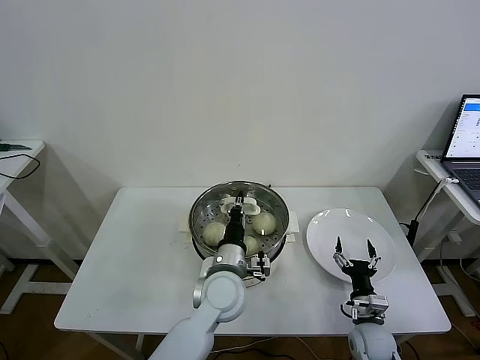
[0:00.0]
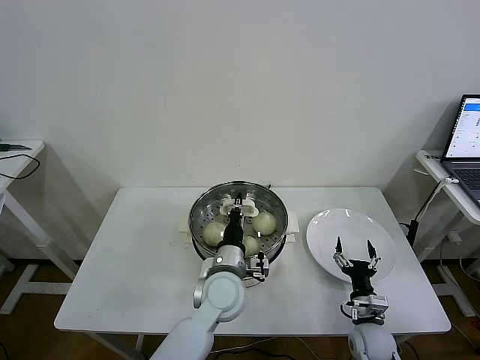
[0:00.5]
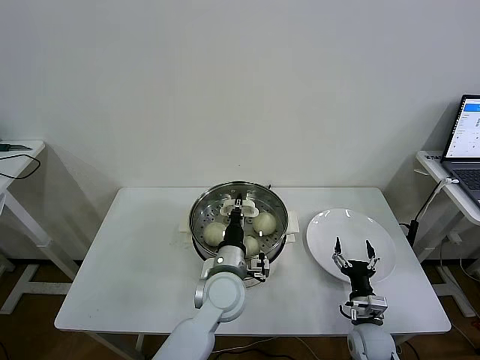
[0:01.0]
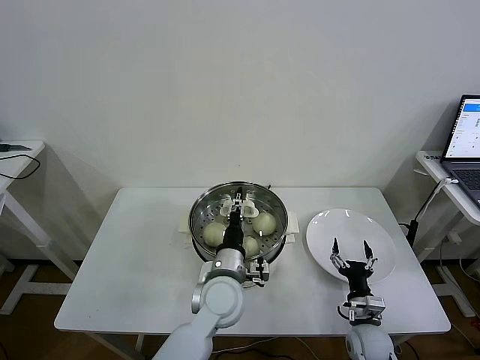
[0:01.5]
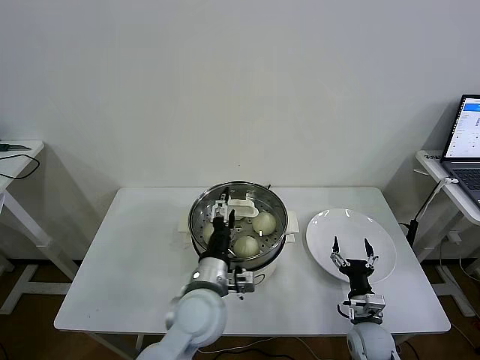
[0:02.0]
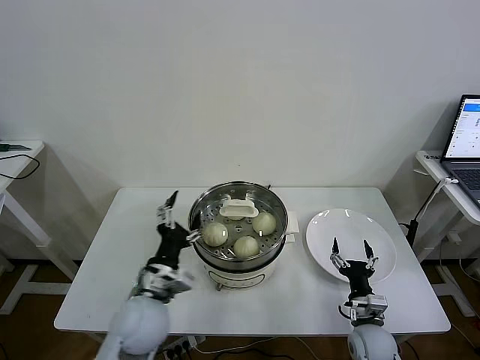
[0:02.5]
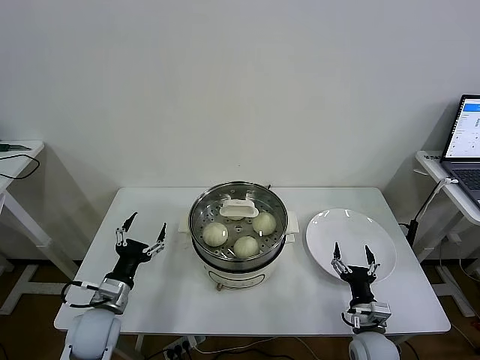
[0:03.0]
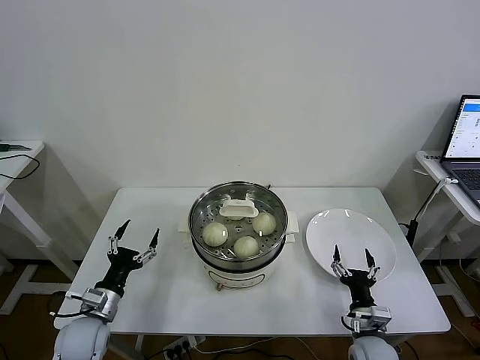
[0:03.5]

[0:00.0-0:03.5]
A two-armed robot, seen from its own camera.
Task of the whole recording: take steamed baozi put them in steamer then cover it.
0:00.0 to 0:02.0: The left gripper moves some 5 cm, and opens.
0:02.0 to 0:03.5: The left gripper goes roughly 25 cm to the left.
